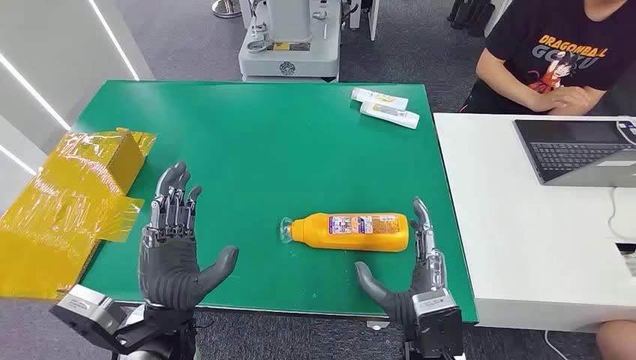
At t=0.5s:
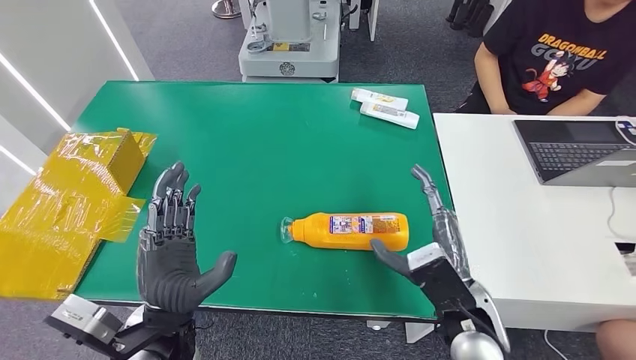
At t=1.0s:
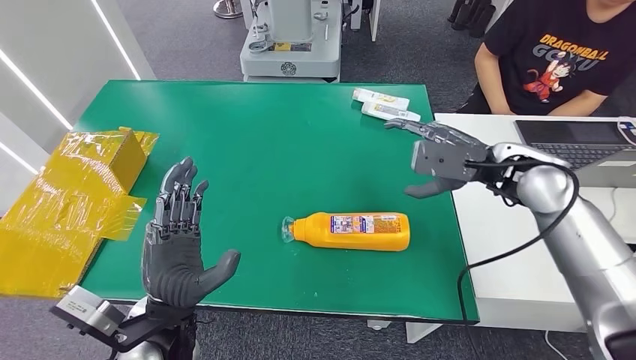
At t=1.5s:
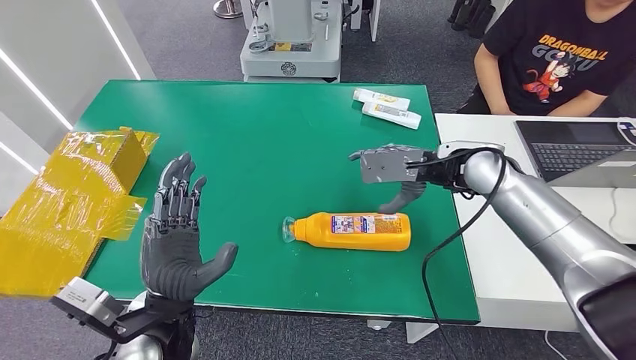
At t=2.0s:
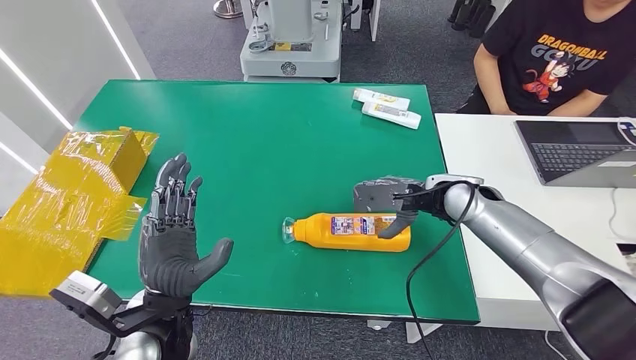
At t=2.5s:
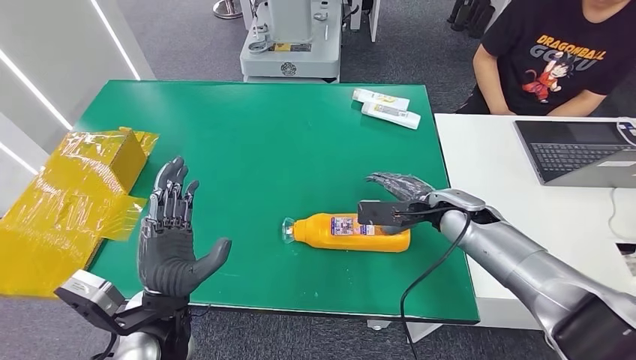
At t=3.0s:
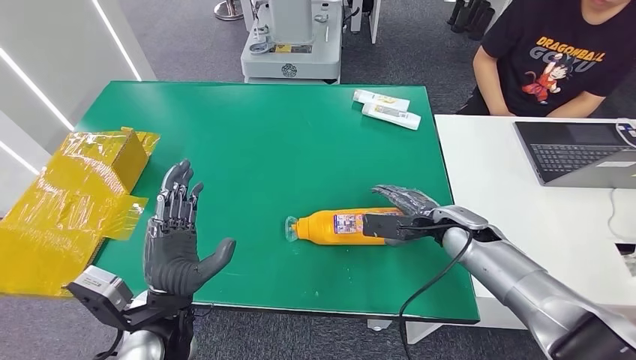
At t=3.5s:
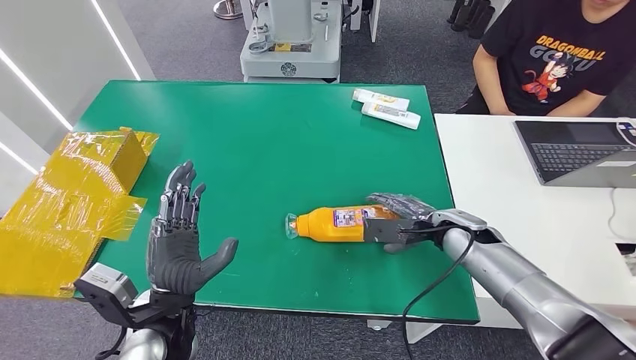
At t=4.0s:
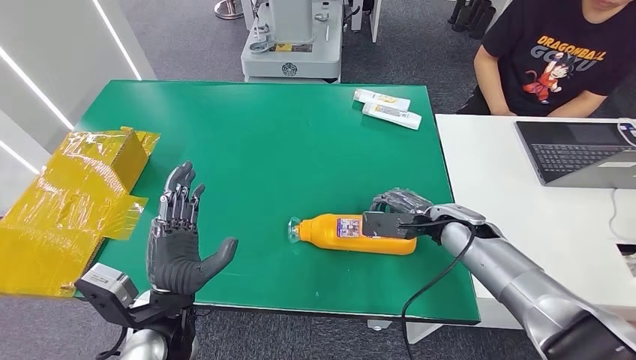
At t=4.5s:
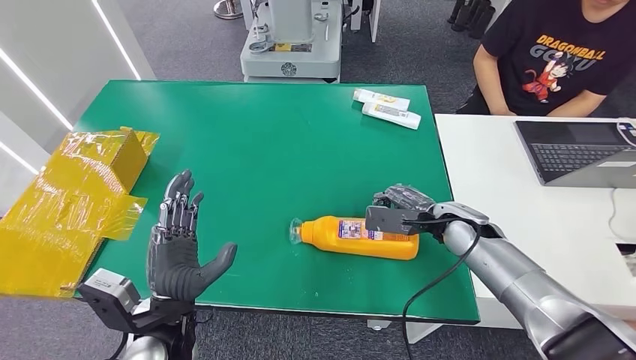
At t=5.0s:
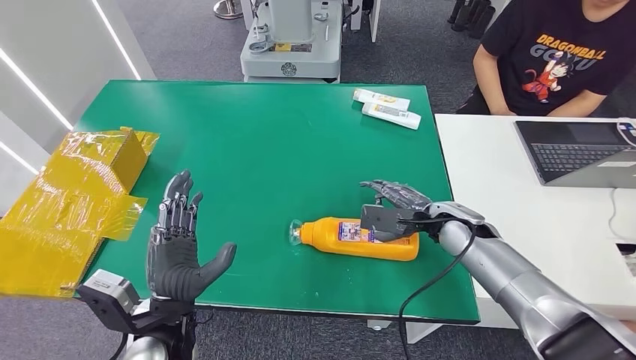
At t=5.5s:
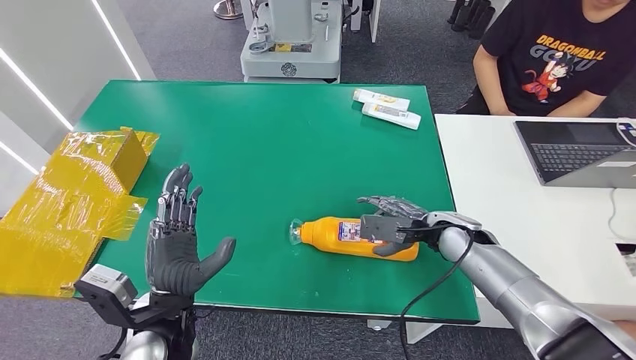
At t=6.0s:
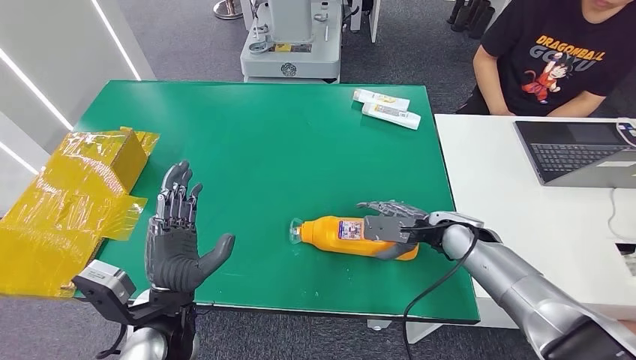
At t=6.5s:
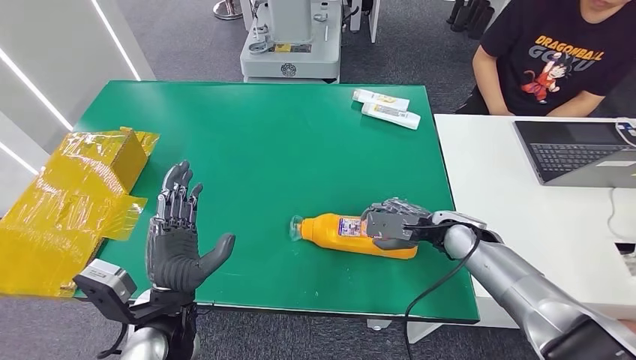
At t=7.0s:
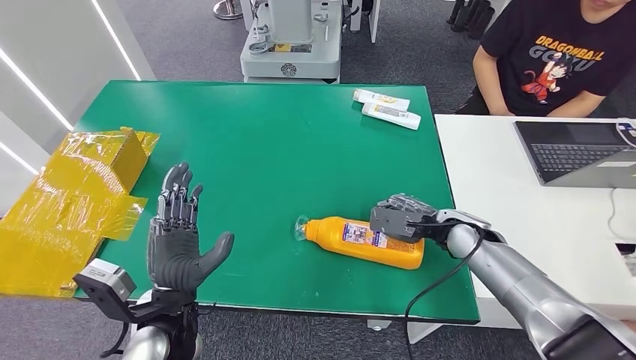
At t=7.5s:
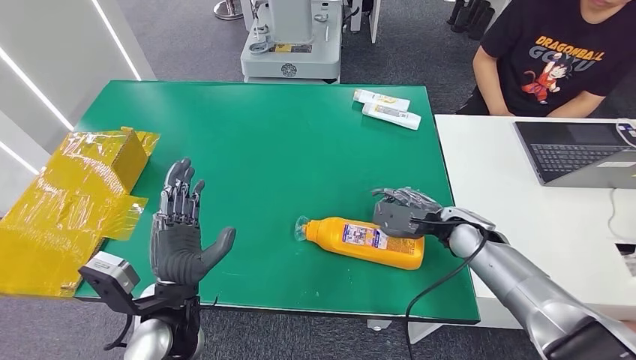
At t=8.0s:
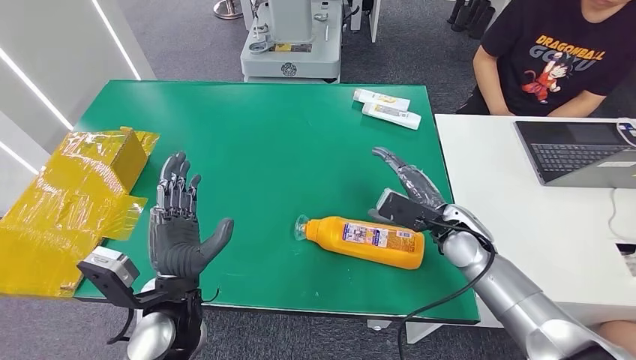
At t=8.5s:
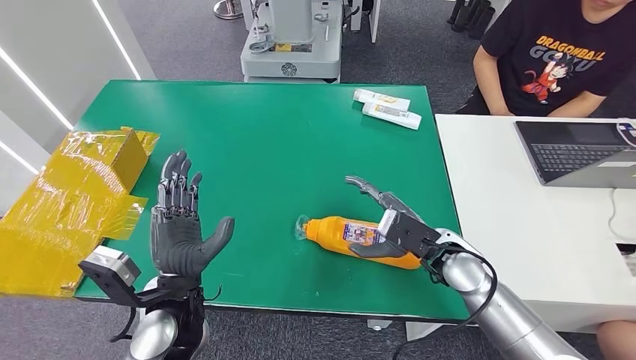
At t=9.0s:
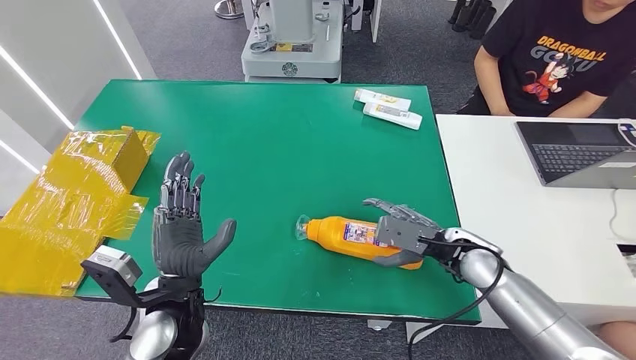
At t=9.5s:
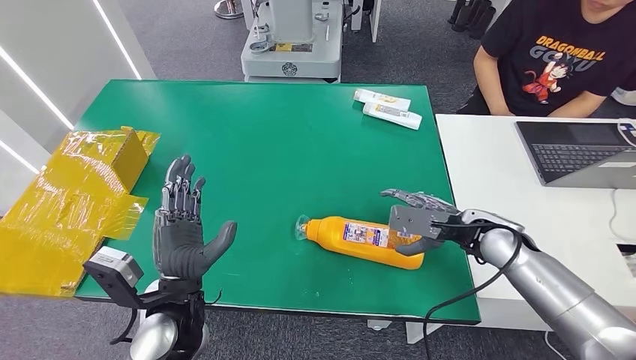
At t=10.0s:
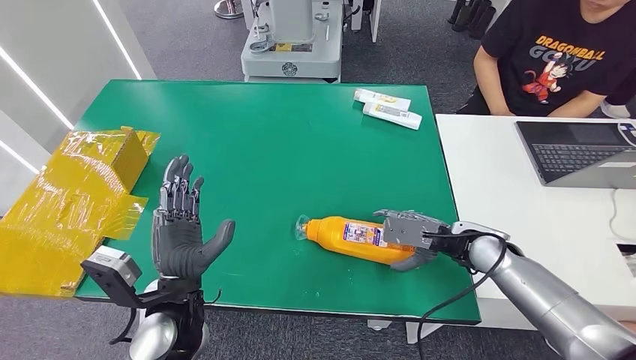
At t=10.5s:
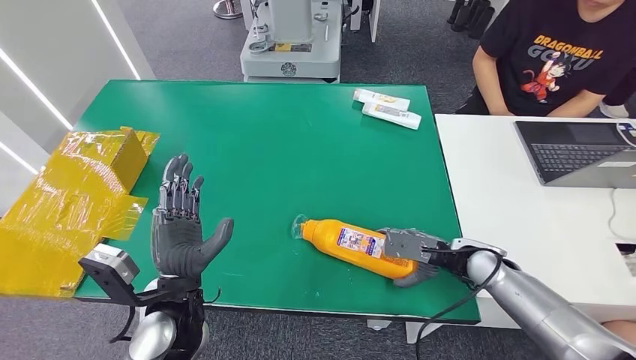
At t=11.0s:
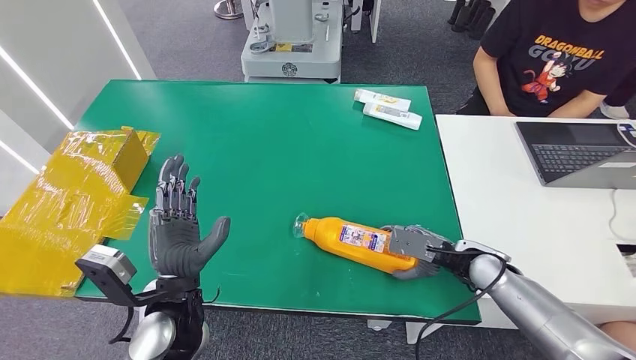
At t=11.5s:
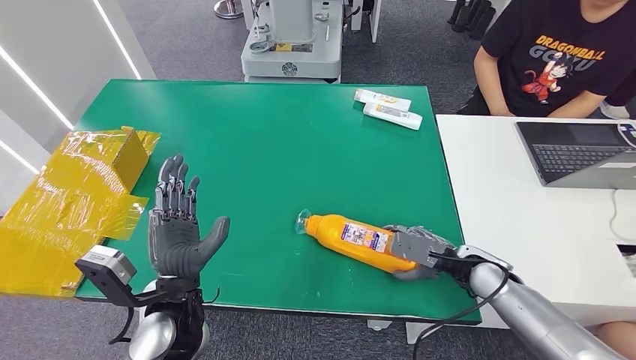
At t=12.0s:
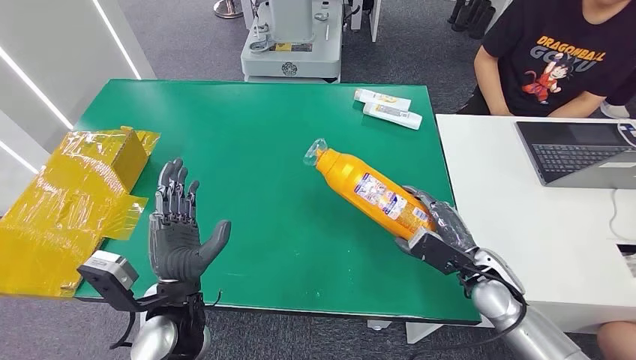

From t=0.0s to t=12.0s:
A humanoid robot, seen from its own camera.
From t=2.0s to t=4.0s: The right hand heads downward, covering about 5 cm.
From t=4.0s to t=6.0s: There are only small adjustments of the hands.
From t=10.0s to t=12.0s: The right hand shifts roughly 5 cm backward.

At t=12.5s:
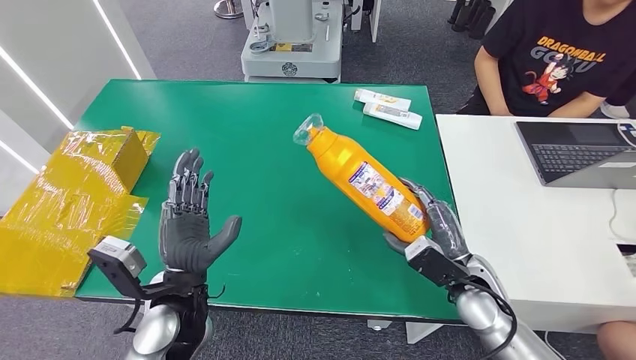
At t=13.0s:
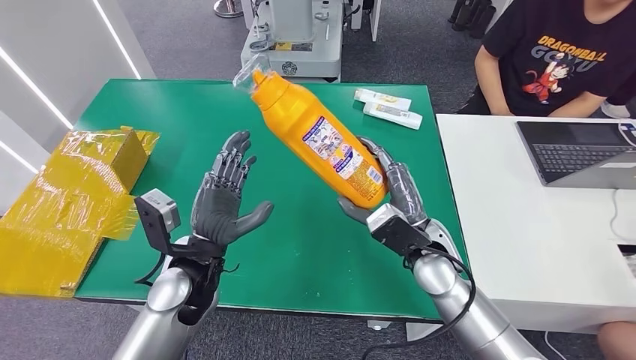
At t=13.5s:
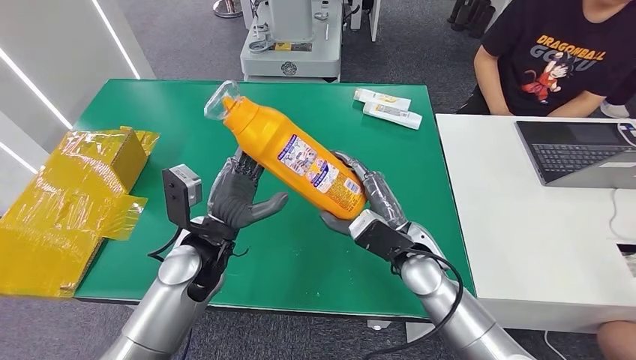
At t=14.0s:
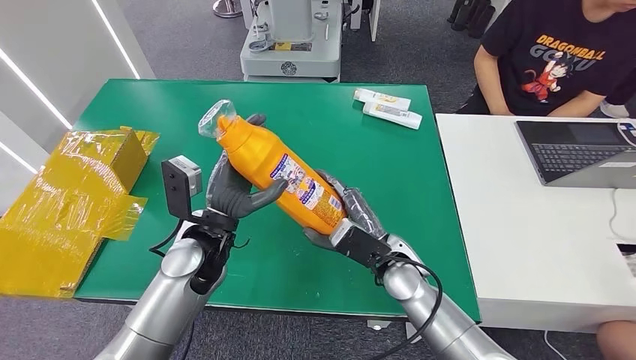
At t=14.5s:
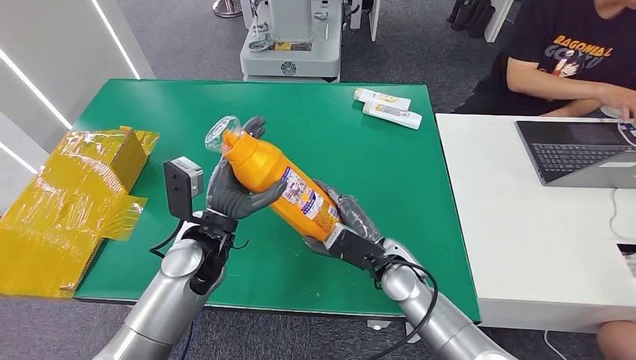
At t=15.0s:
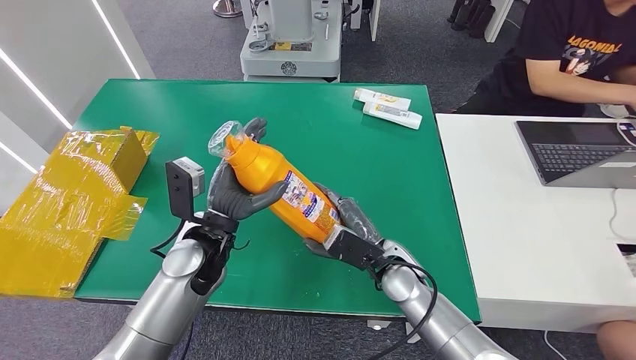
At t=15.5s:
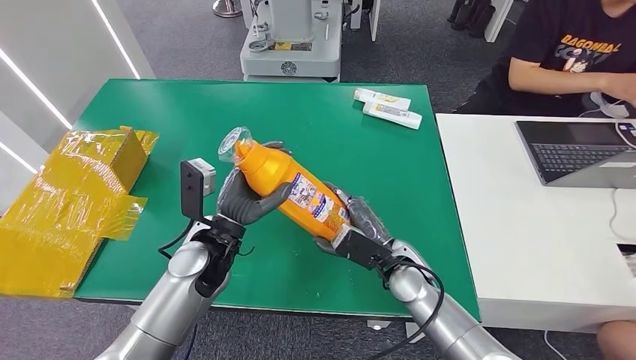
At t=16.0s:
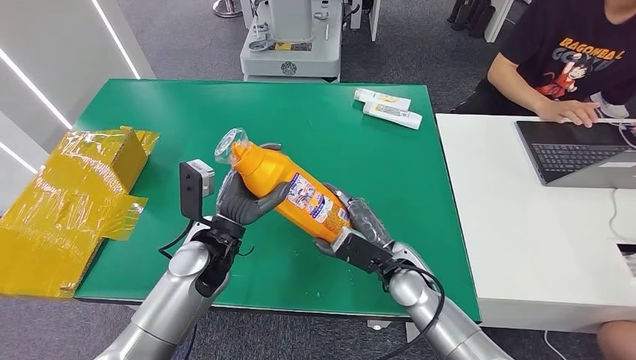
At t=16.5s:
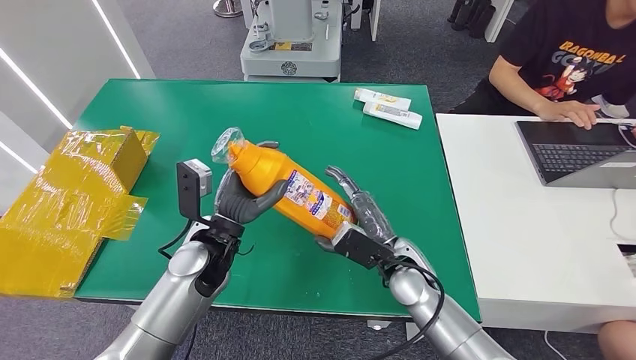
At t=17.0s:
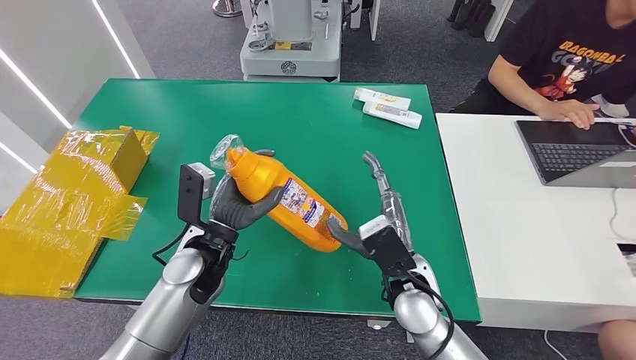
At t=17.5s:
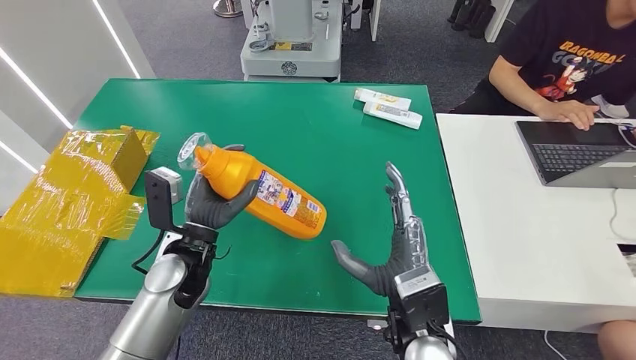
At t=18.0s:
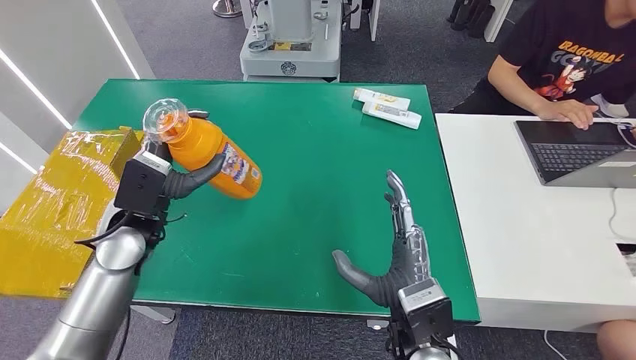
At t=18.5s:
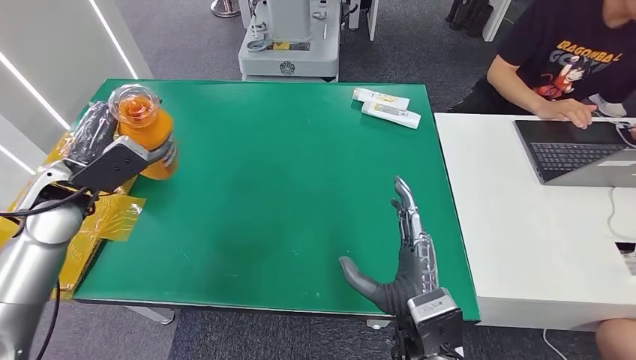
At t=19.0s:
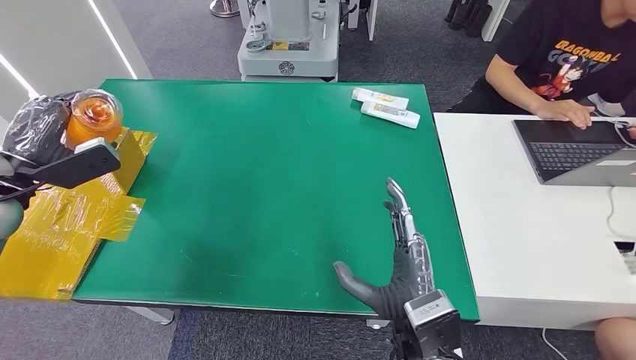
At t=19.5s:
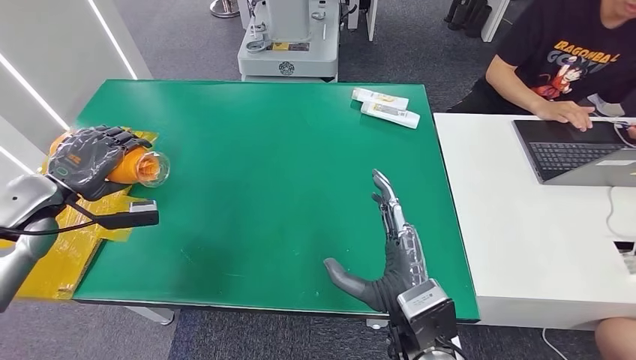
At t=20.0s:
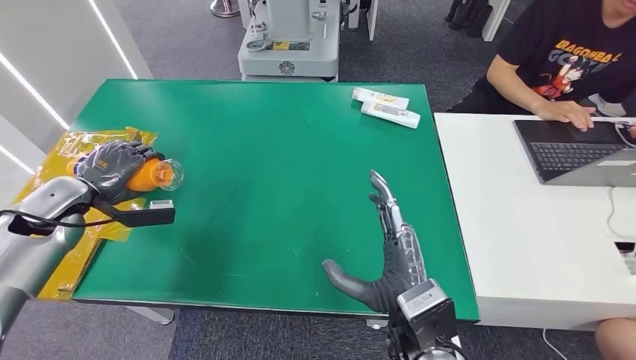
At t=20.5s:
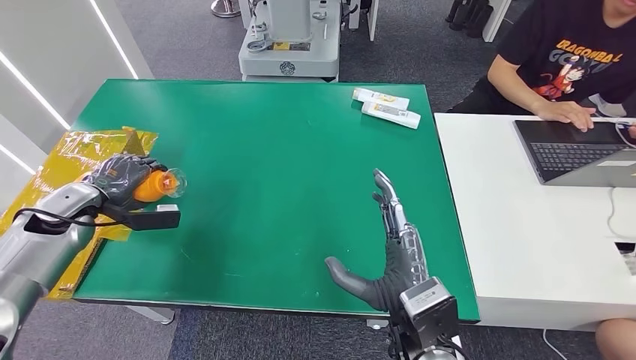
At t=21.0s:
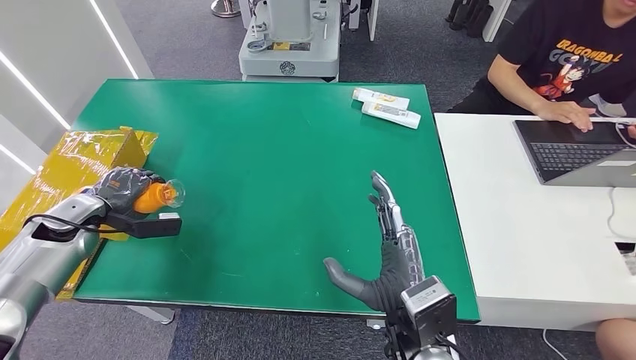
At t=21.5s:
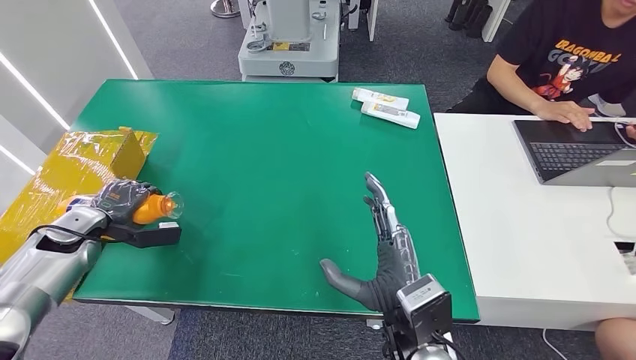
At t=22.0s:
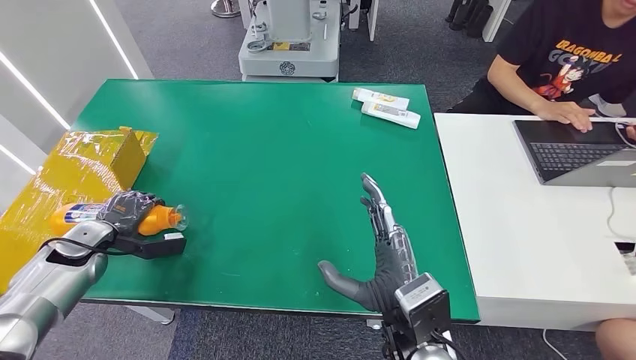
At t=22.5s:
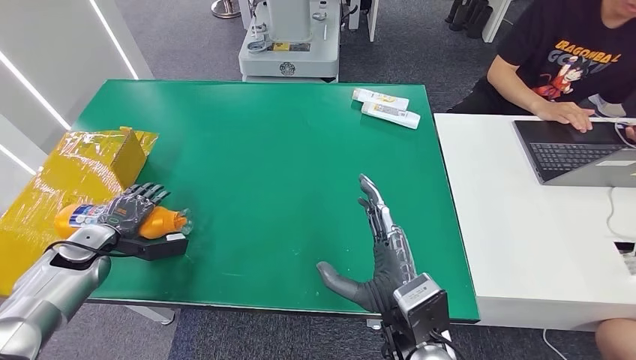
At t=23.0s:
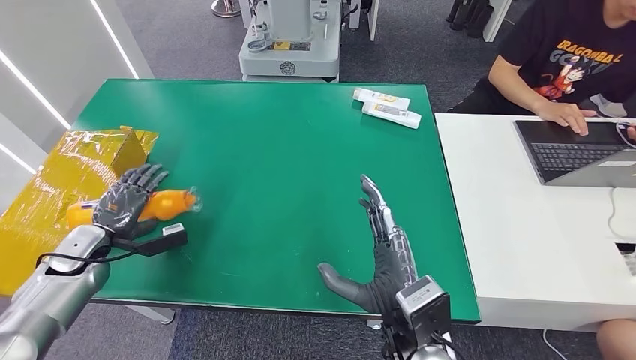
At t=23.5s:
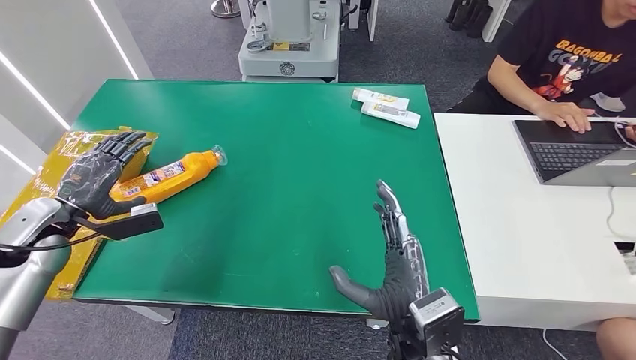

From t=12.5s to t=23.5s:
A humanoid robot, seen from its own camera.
From t=14.5s to t=16.0s: The hands move only a little.
From t=16.0s to t=18.0s: The left hand travels to the left and upward by roughly 10 cm. The right hand heads backward and upward, covering roughly 15 cm.
From t=18.0s to t=20.0s: The left hand shifts roughly 20 cm to the left.
From t=20.0s to t=21.5s: The left hand heads downward, covering some 10 cm.
From t=21.5s to t=23.5s: The left hand is displaced upward by roughly 5 cm.
